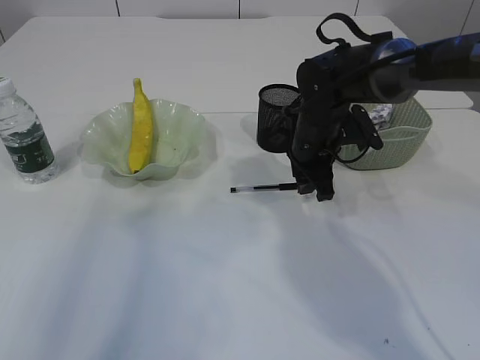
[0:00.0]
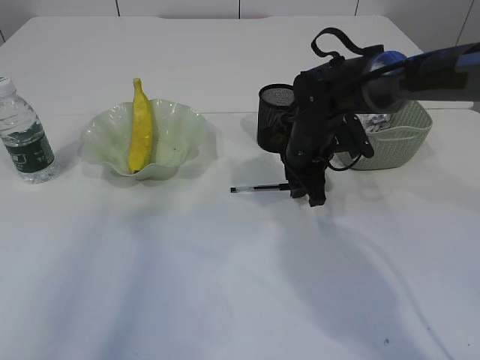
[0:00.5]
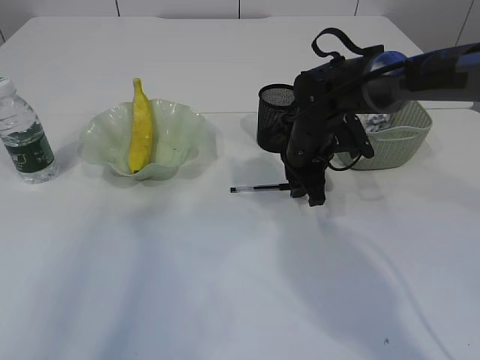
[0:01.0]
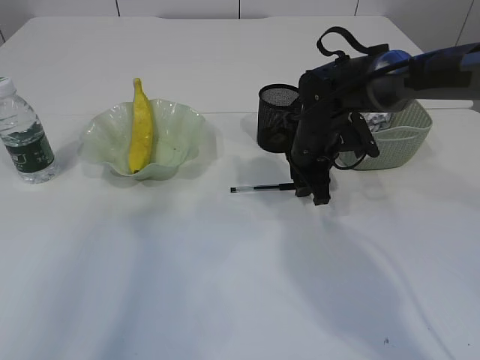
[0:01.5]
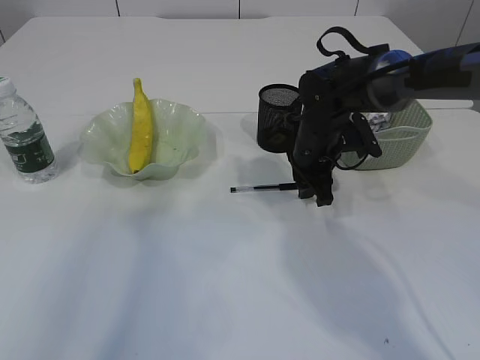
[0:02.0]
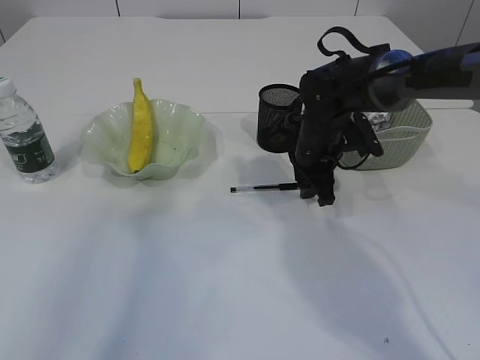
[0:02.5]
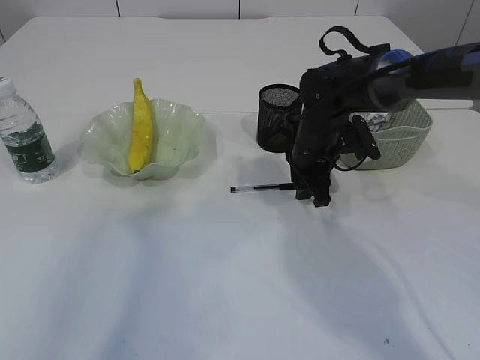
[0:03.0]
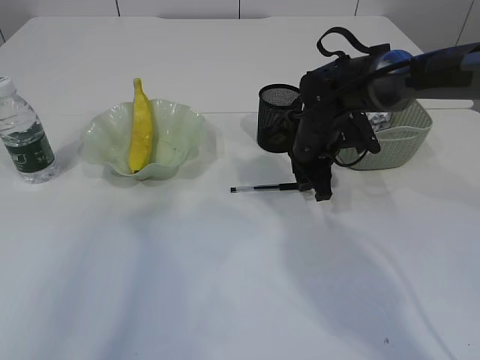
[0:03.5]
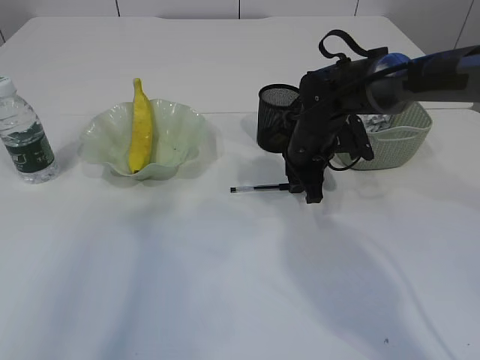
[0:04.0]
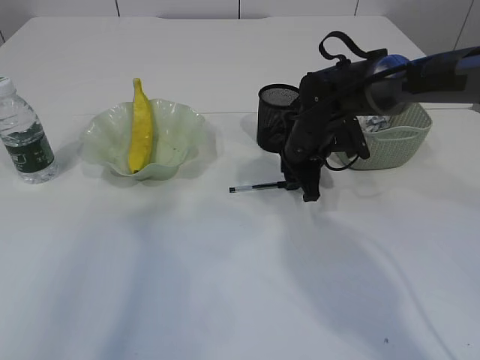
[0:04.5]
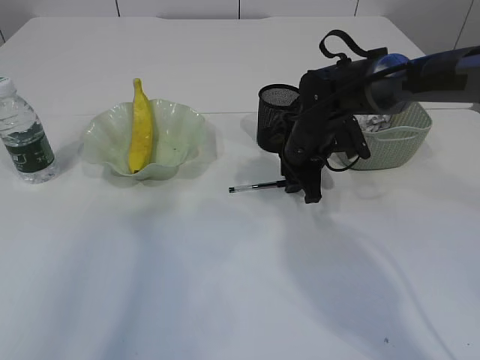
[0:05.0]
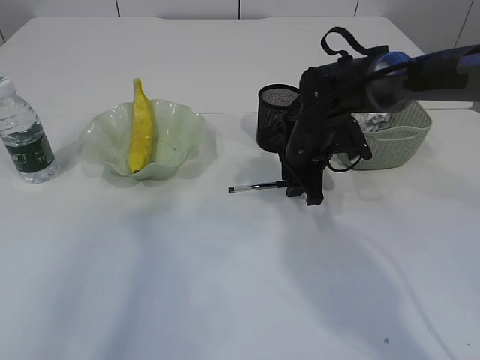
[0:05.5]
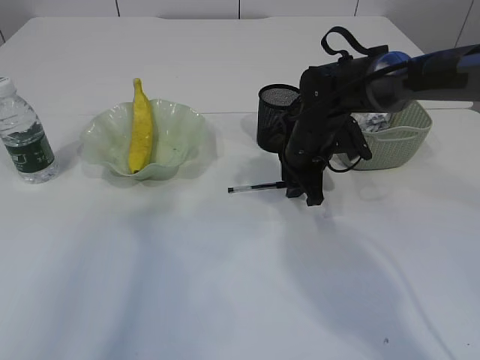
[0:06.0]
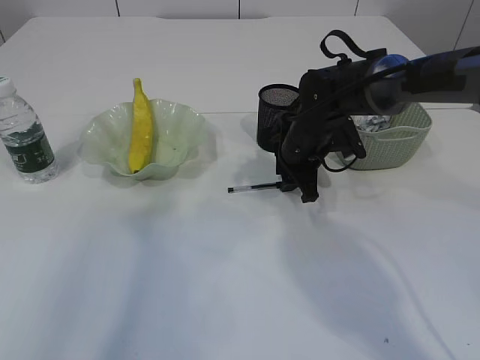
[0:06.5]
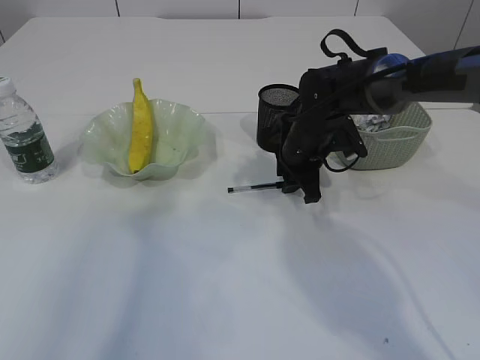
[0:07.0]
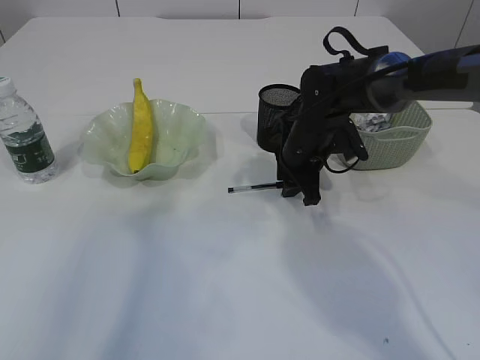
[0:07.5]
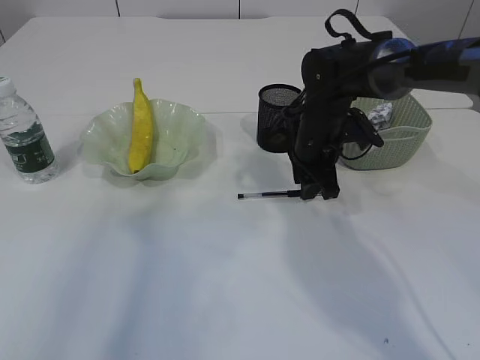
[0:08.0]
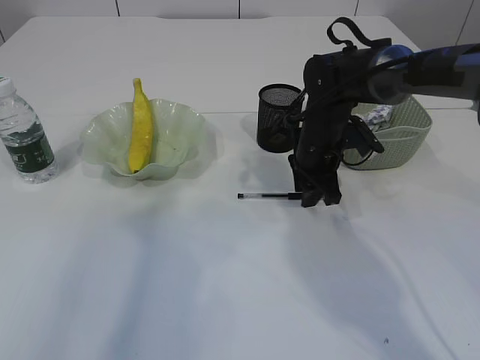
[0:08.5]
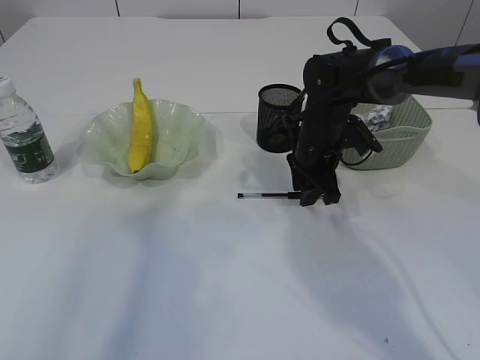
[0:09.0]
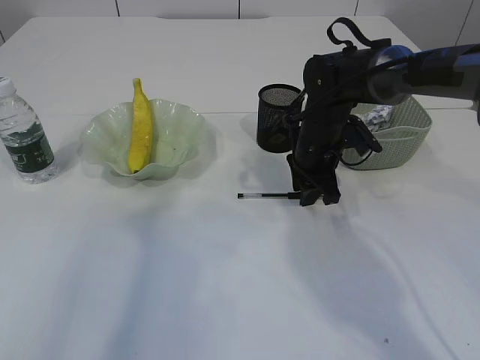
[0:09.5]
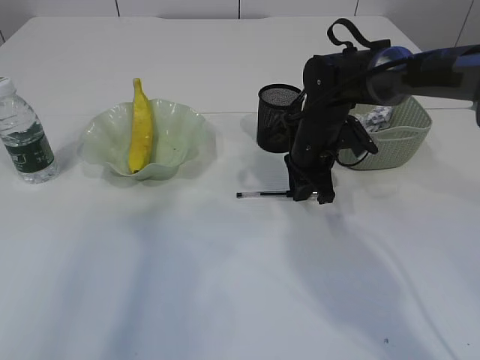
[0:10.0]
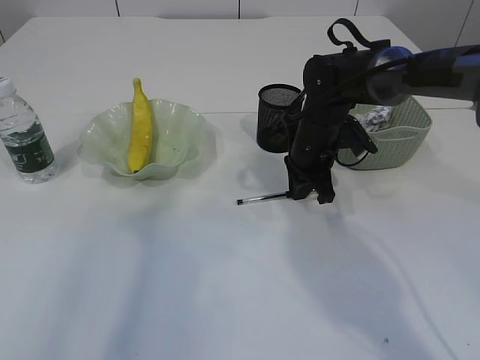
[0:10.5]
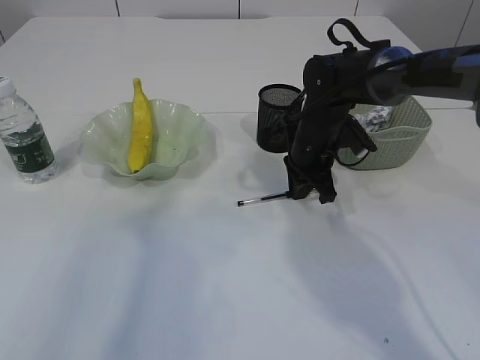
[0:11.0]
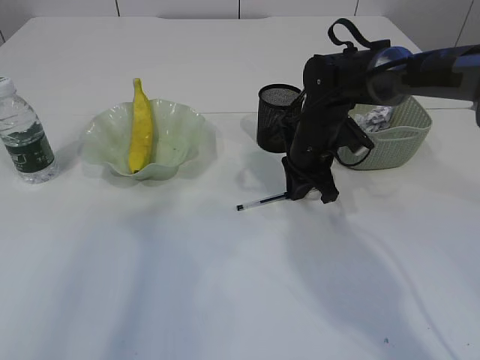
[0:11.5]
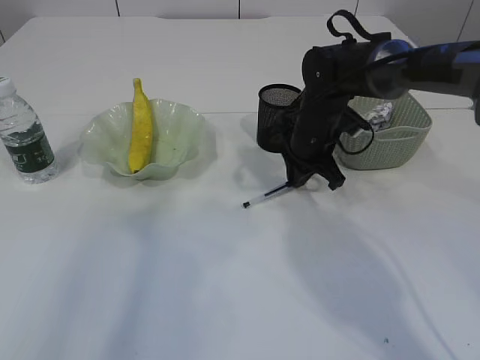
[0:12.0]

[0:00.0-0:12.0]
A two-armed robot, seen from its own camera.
0:00.0 to 0:08.0: The grippers stay close to where they were, moving slightly.
0:08.0 to 0:10.0: Neither gripper changes place.
0:10.0 to 0:12.0: There are only small adjustments of the grippers.

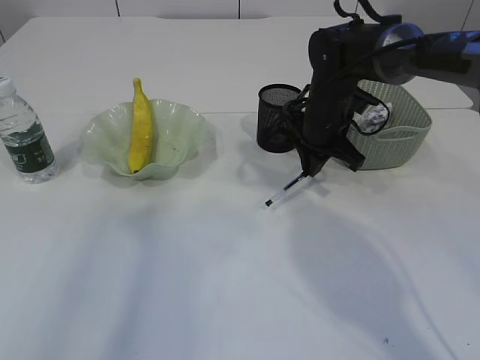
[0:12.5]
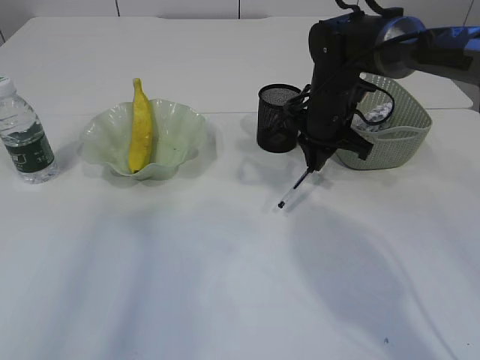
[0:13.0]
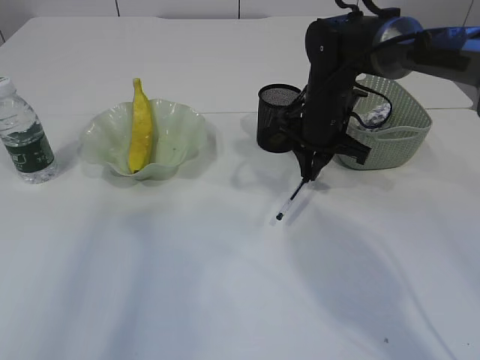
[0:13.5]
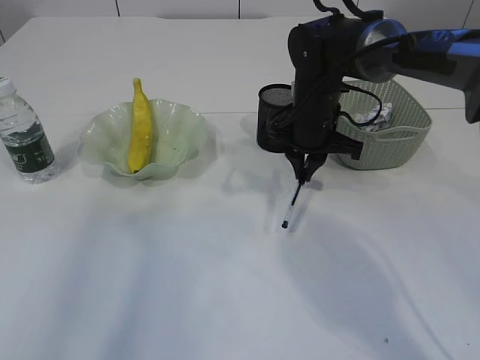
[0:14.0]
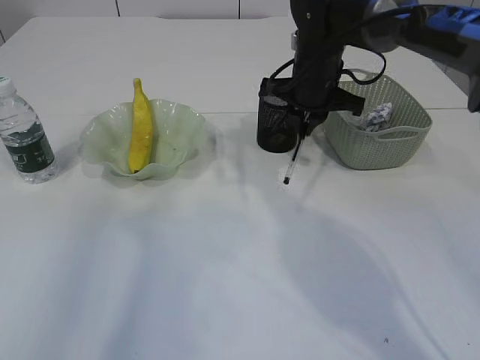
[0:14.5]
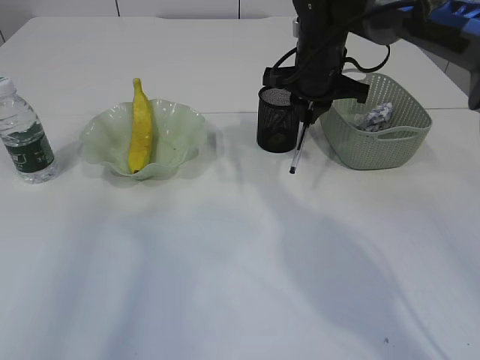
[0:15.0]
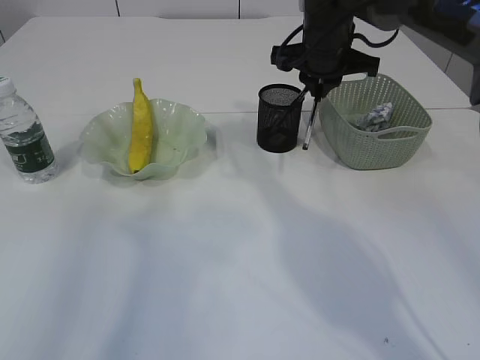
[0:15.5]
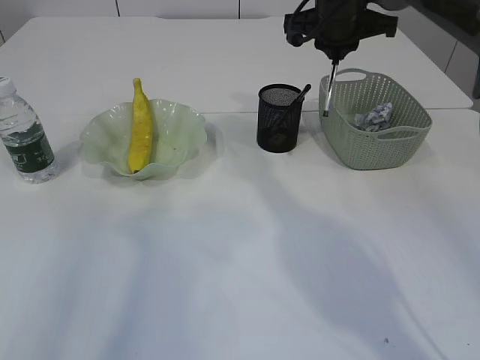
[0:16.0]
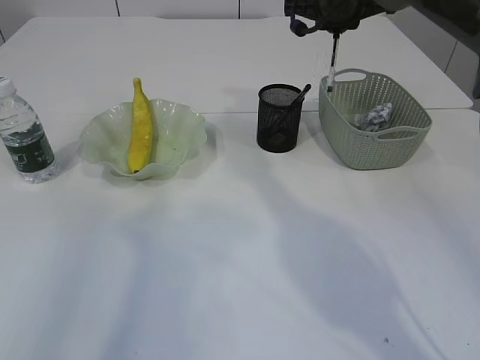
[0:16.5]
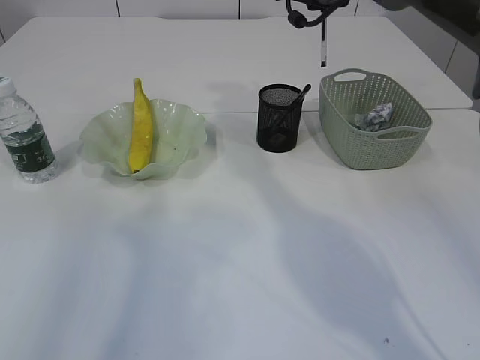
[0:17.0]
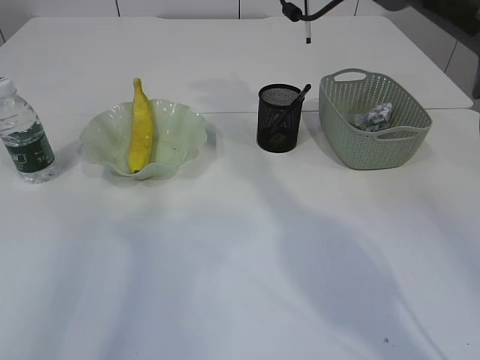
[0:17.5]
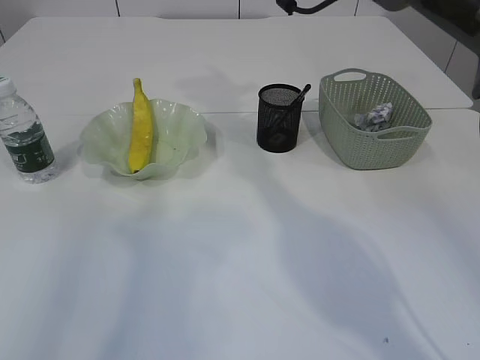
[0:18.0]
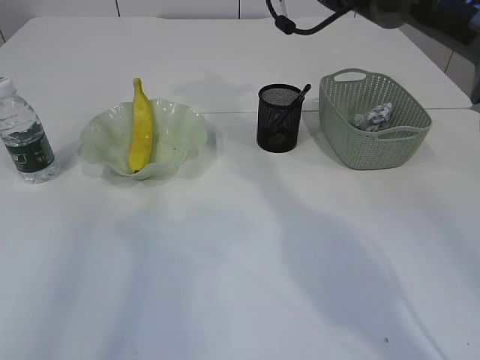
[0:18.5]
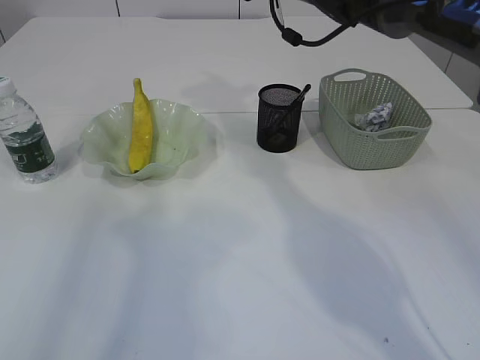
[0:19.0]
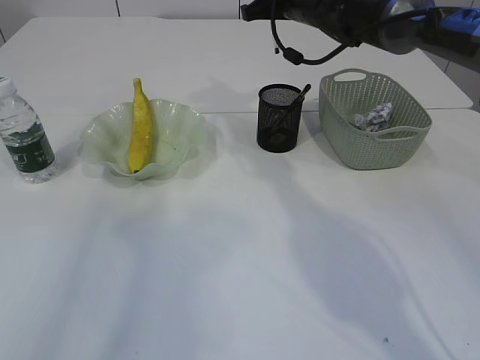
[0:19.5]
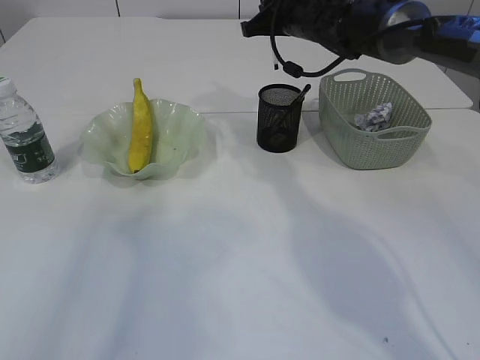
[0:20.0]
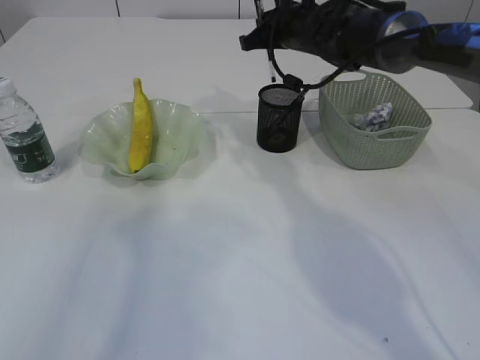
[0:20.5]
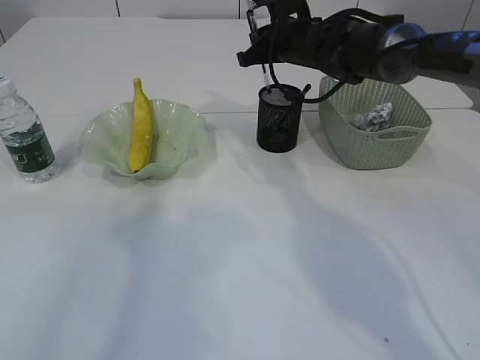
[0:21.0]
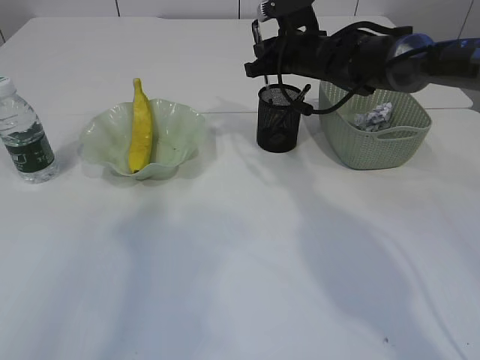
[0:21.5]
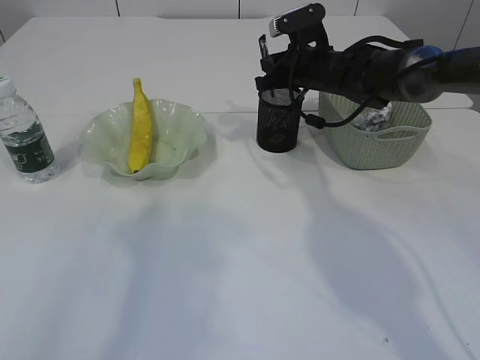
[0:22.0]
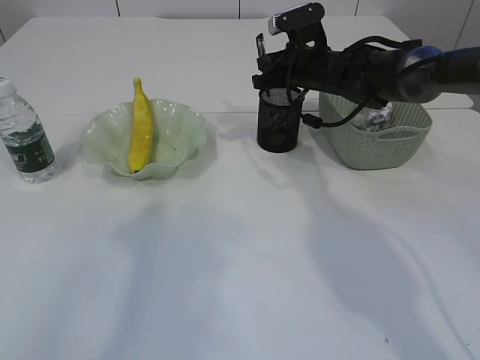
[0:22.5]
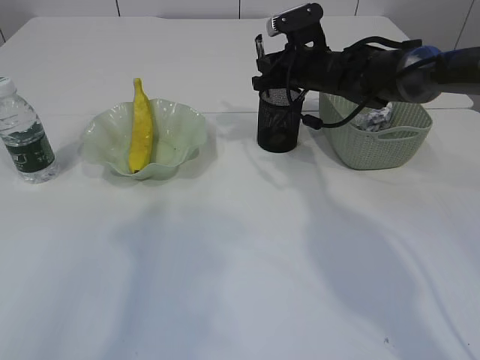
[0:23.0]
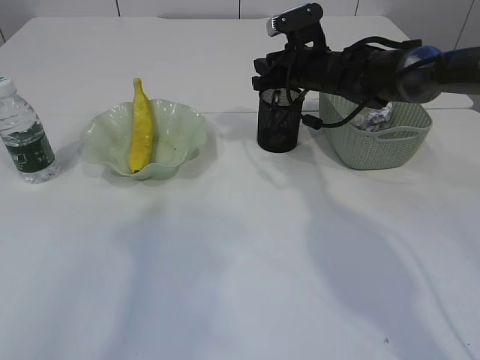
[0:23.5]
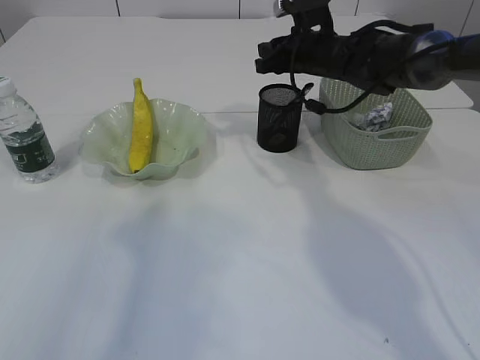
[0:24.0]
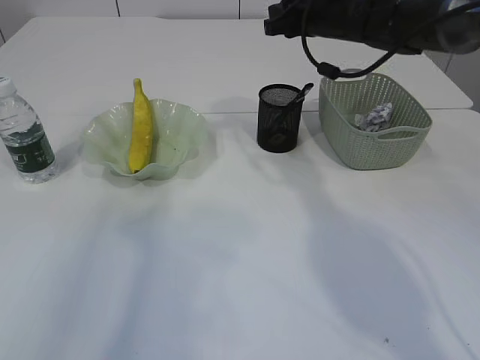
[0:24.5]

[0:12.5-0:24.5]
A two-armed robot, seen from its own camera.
Step, 0:14.5 to 0:24.0: Place the pen into the pen holder.
0:12.5 to 0:14.5: The right gripper is displaced upward by some 5 cm.
0:14.5 to 0:16.5: The right gripper goes roughly 10 cm upward.
0:16.5 to 0:18.5: The right gripper shifts by some 5 cm.
0:18.5 to 0:20.5: The right gripper moves downward, approximately 10 cm.
0:20.5 to 0:22.5: The right gripper shifts approximately 5 cm downward.
0:22.5 to 0:24.5: The right gripper travels upward by some 10 cm.
